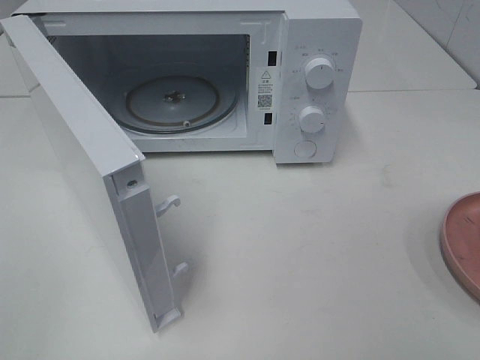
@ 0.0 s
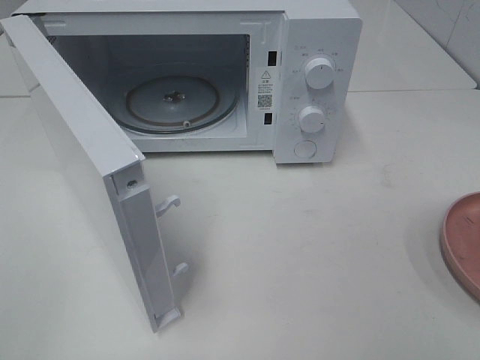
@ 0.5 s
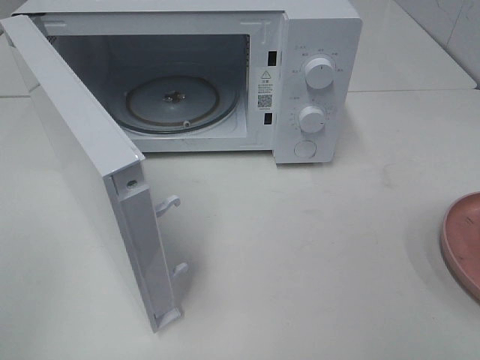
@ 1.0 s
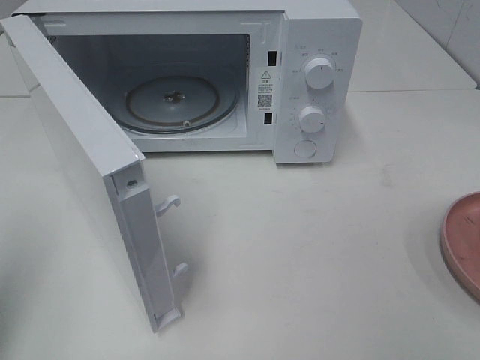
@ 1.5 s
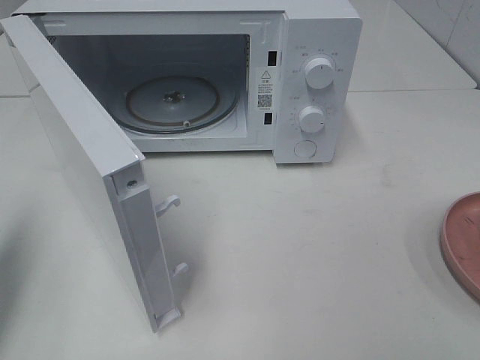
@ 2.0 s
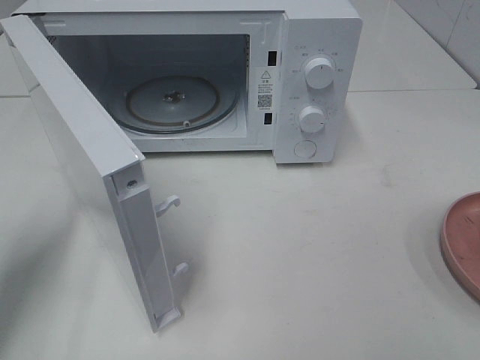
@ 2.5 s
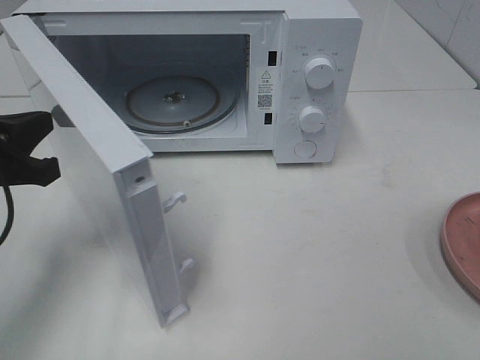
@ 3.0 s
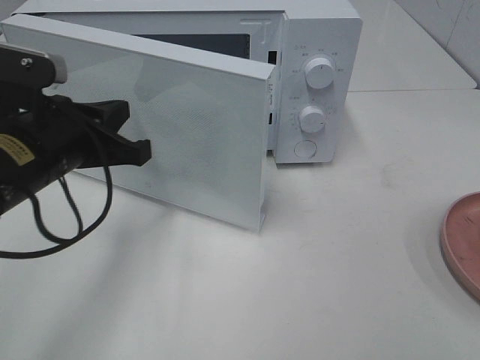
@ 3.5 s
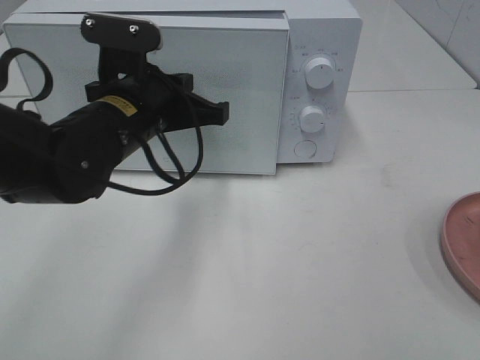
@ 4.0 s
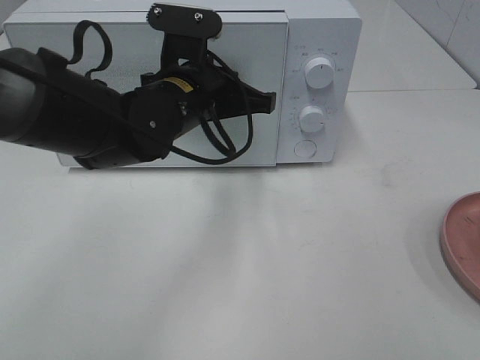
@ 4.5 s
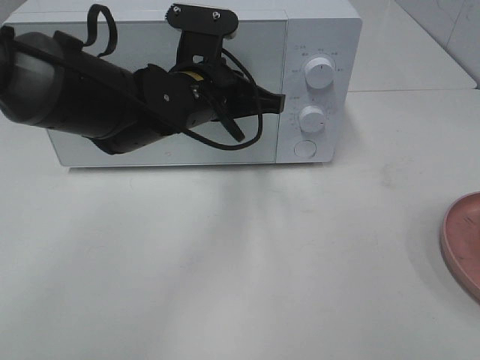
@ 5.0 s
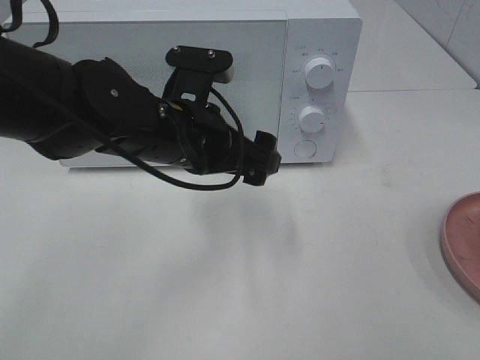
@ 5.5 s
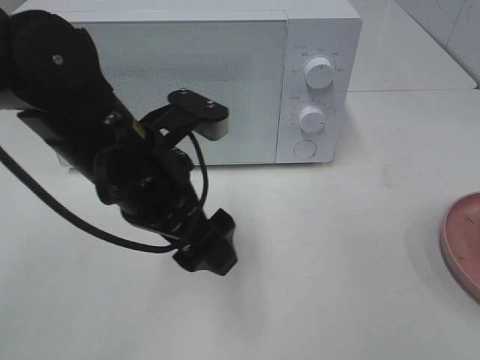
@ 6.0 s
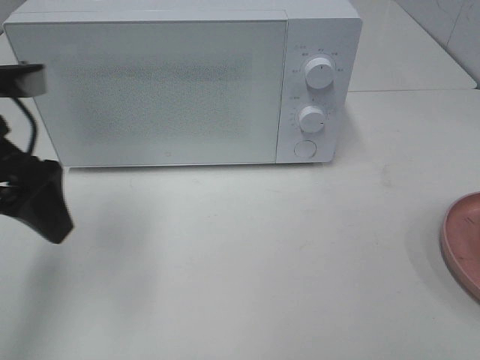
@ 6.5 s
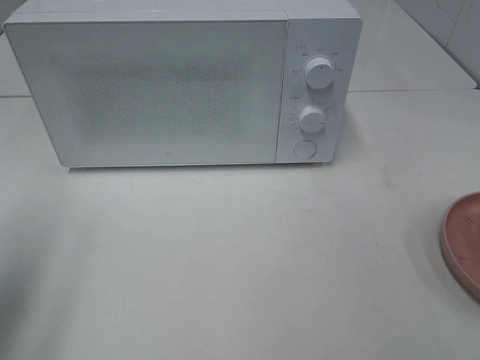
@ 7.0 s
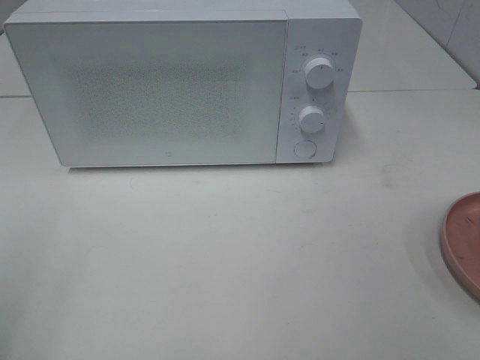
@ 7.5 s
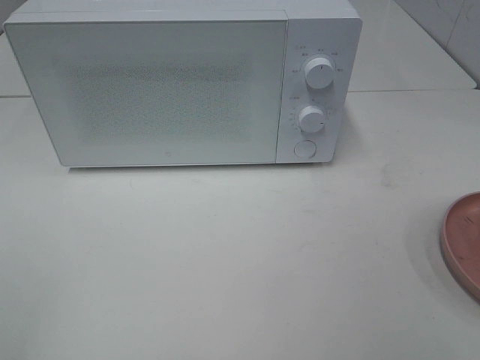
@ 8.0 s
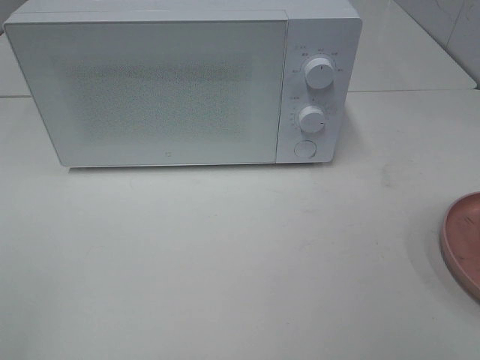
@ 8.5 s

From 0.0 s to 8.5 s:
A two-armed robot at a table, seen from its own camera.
Task of the whole recording: Heat the burger.
Step, from 0.0 s to 5.5 s: Left hand: close the microwave door.
From 0.0 s to 2.0 s: The left gripper travels forward by about 20 cm, and closes.
From 2.0 s to 4.0 s: The left gripper travels to the right and forward by approximately 25 cm.
From 4.0 s to 6.5 s: The left gripper travels to the left, upward and backward by some 15 cm, and opens.
From 6.5 s to 8.5 s: The left gripper shifts approximately 25 cm backward.

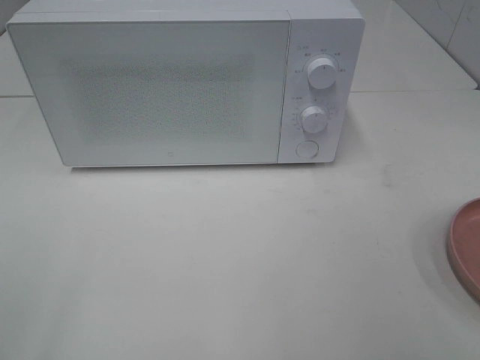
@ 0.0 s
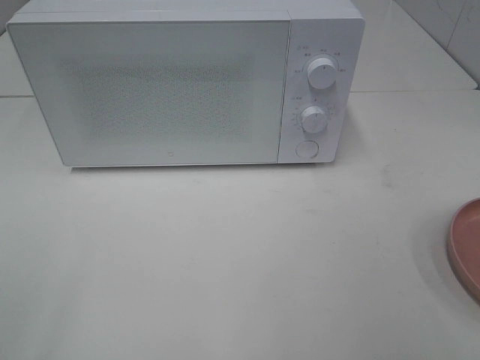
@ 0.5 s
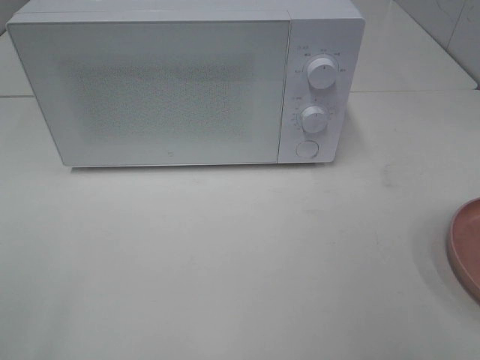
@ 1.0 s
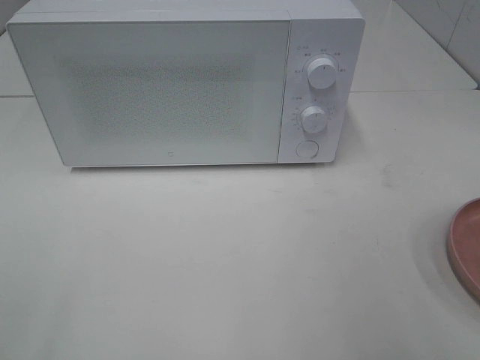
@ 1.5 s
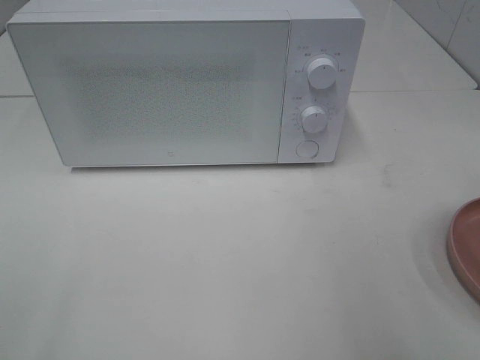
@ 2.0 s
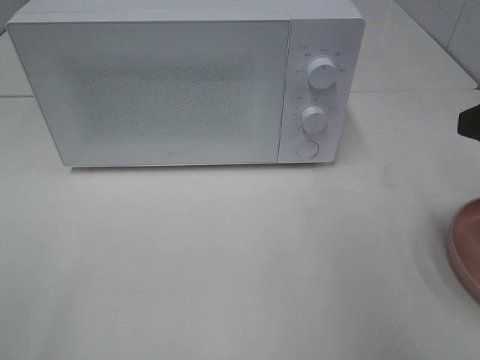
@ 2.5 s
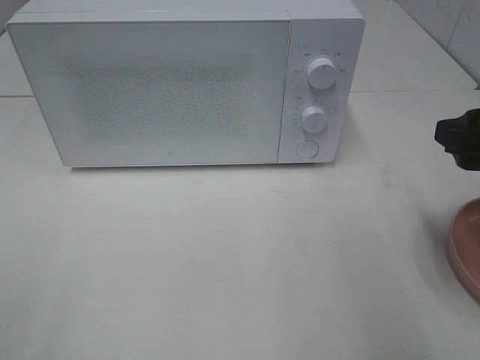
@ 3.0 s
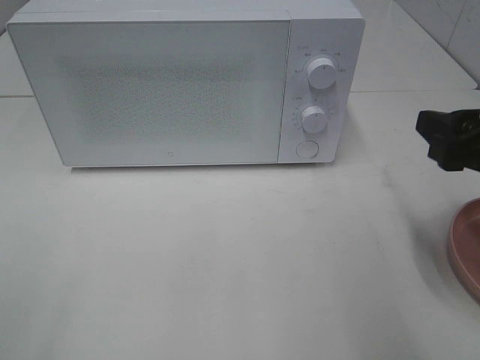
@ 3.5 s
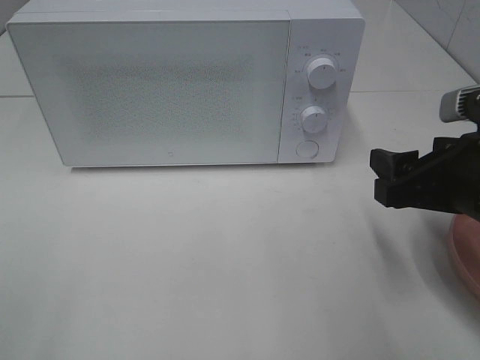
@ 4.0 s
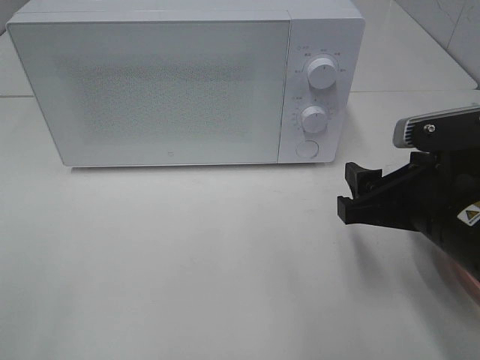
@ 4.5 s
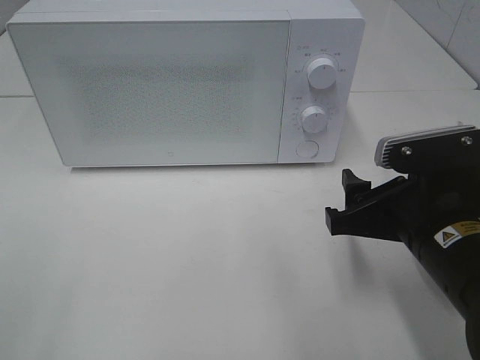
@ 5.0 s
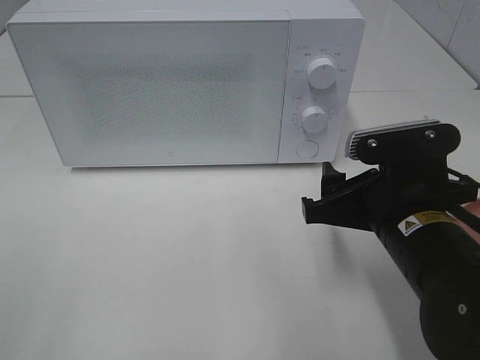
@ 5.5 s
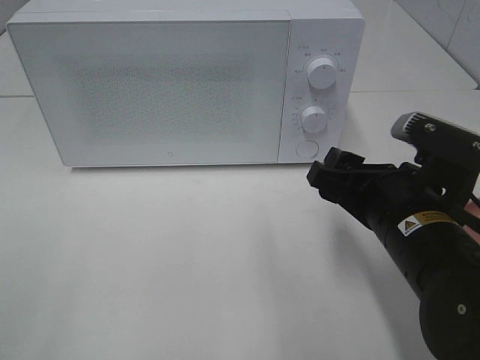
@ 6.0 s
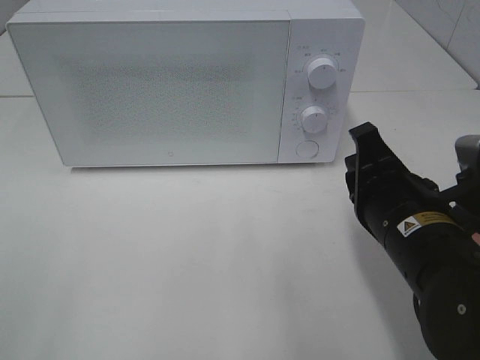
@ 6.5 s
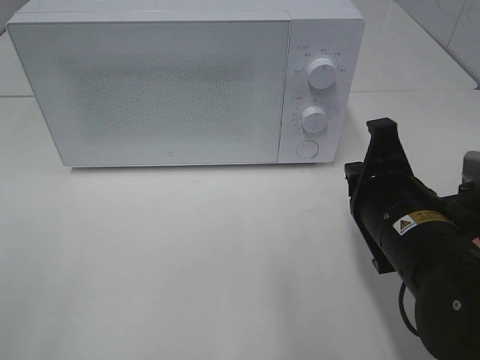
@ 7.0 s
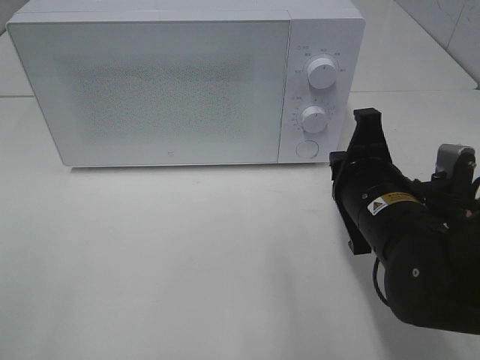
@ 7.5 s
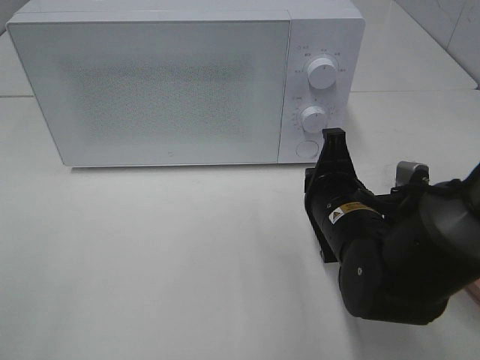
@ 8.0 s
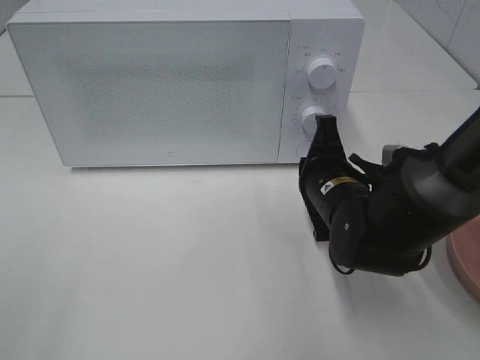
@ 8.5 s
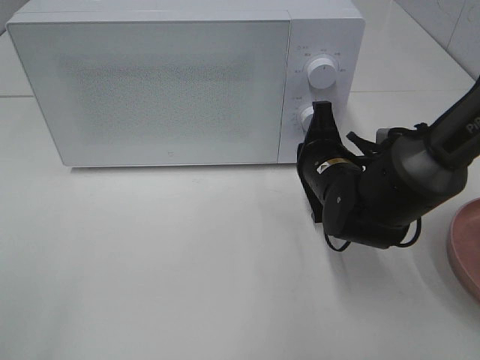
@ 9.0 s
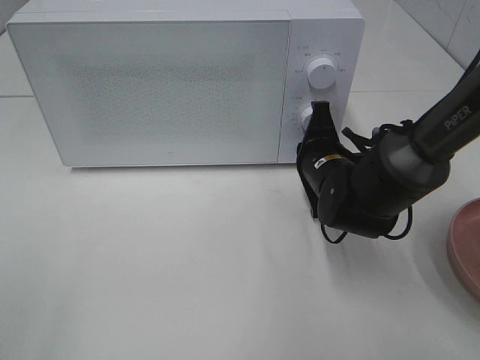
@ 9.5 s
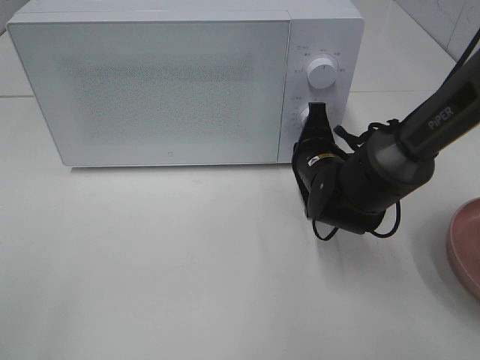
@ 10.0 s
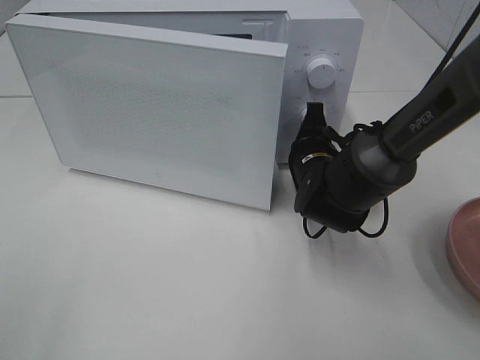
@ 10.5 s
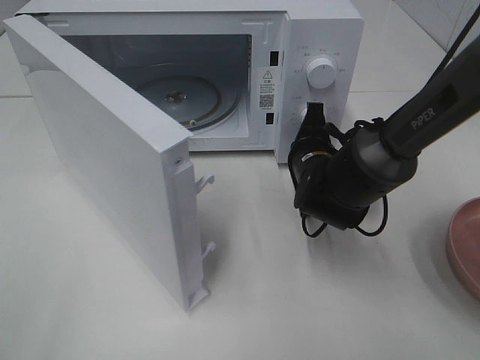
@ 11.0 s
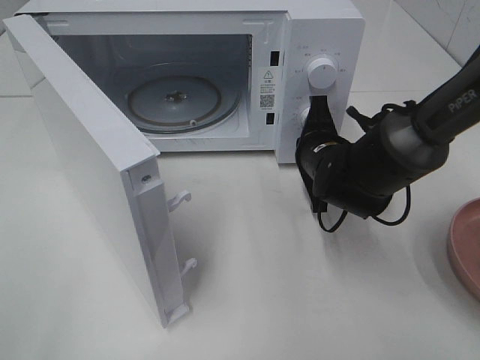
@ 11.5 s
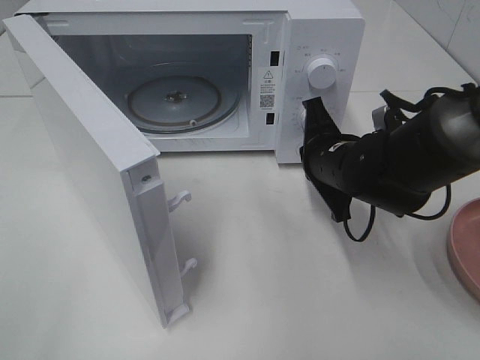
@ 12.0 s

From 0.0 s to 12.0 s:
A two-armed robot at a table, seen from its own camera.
Task of the whole recording: Heat the burger.
Step, from 0.0 s to 11.5 s: Right hand: press the switch.
From 2.0 s to 4.0 s: The right gripper moves downward, to the left and forward, approximately 15 cm.
From 4.0 s to 6.0 s: The right gripper moves to the left, about 5 cm.
From 6.0 s to 8.0 s: The right gripper goes approximately 5 cm forward, and closes up.
From 8.0 s to 10.0 s: The right gripper moves forward, some 10 cm.

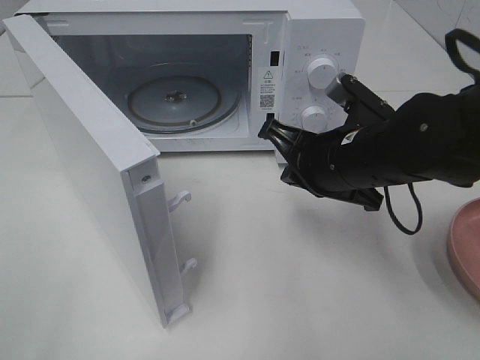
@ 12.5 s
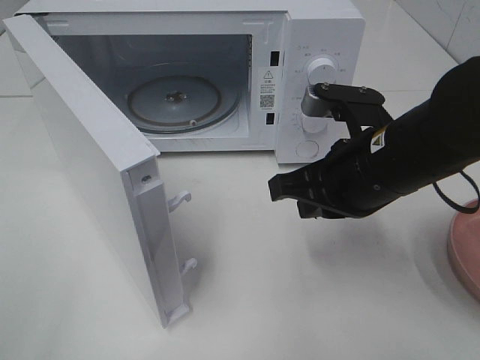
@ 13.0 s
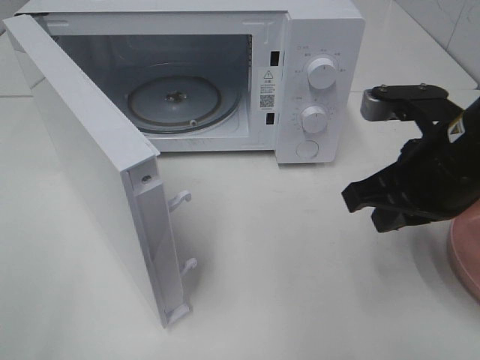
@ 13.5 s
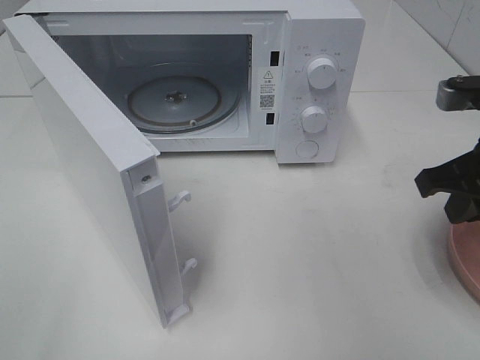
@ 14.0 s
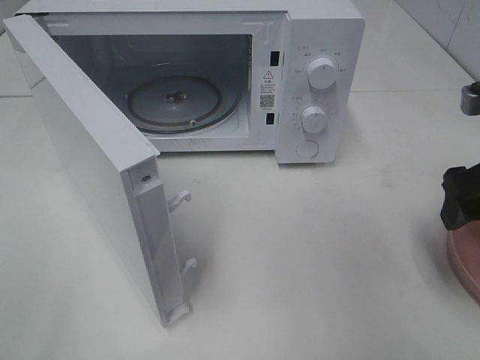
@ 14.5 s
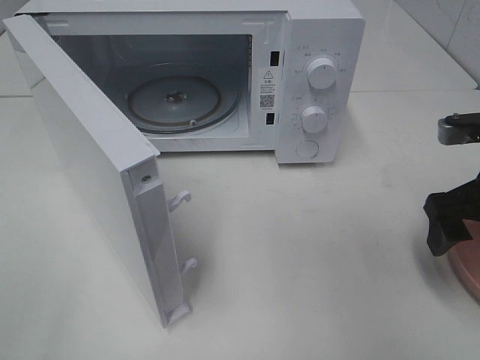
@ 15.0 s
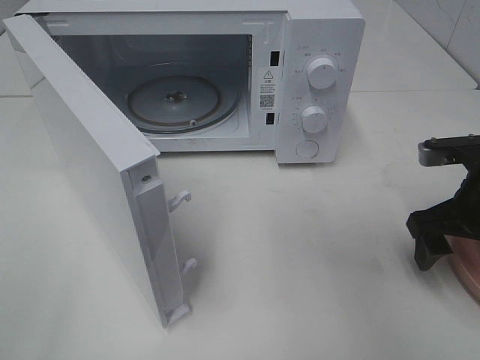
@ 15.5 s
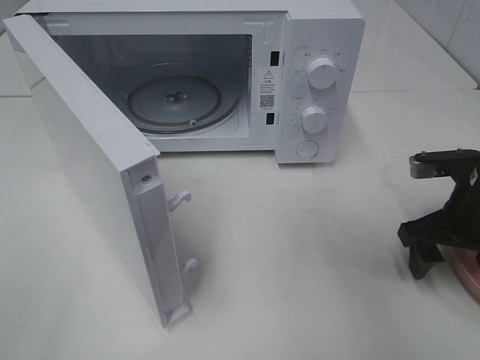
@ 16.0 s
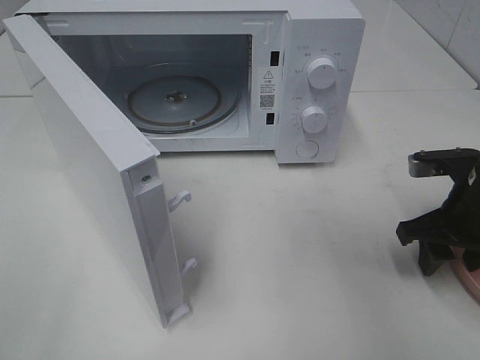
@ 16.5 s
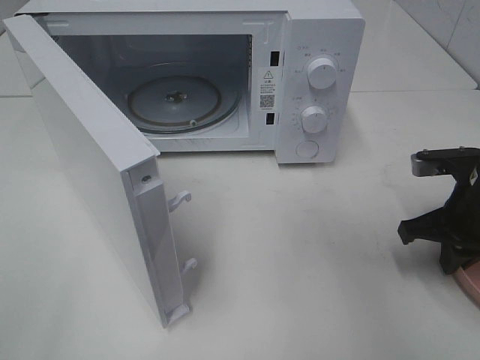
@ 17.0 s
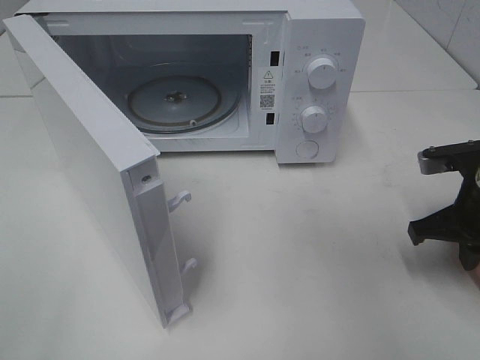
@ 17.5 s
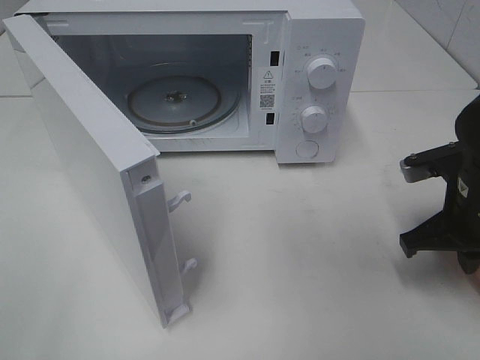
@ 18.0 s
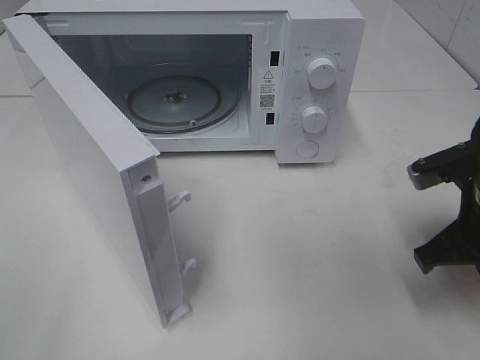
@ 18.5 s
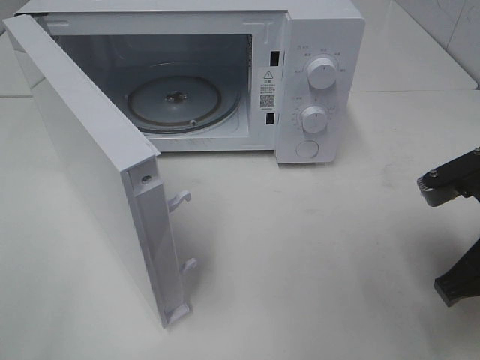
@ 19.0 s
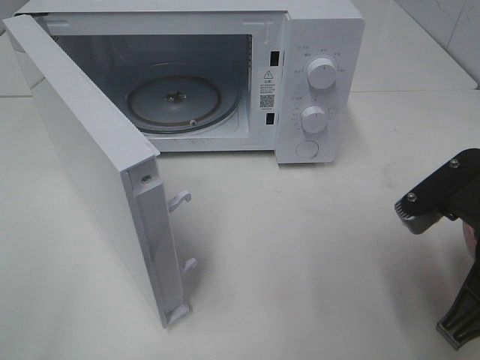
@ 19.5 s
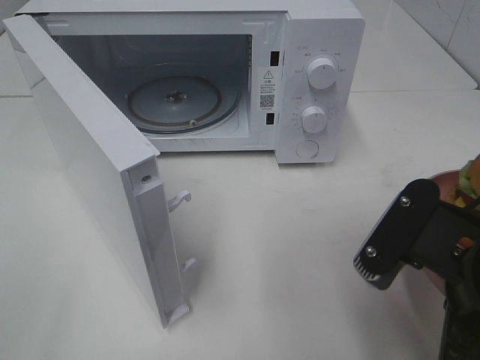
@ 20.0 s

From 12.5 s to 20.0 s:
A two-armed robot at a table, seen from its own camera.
Task of the whole recording: Heat the burger.
Step, from 12.5 s to 17.0 s: Right hand: grab the plate with the hamburger.
From 12.5 s to 14.5 s: The right gripper shifts about 15 cm to the right, and opens its fingers.
From 14.5 s to 16.5 s: The right gripper travels downward by approximately 10 cm.
From 16.5 s to 18.0 s: The right gripper closes.
From 18.0 s to 20.0 s: The right gripper travels backward, to the left and upward by roughly 15 cm.
